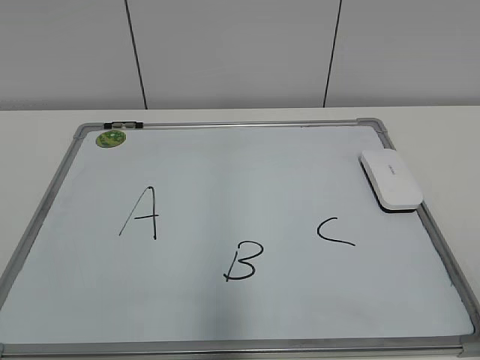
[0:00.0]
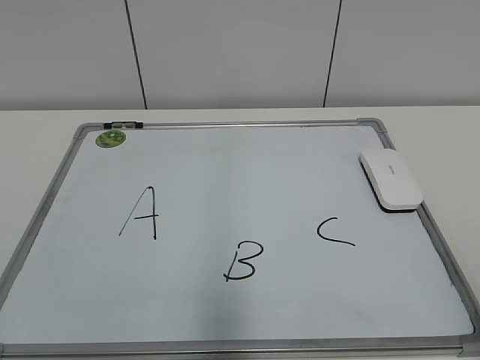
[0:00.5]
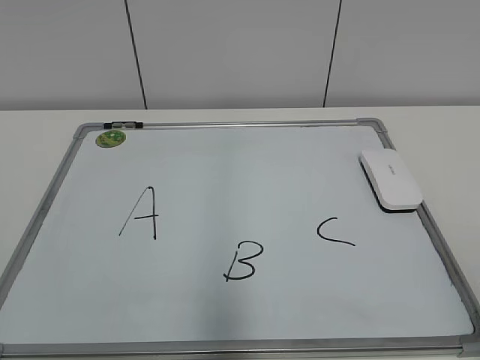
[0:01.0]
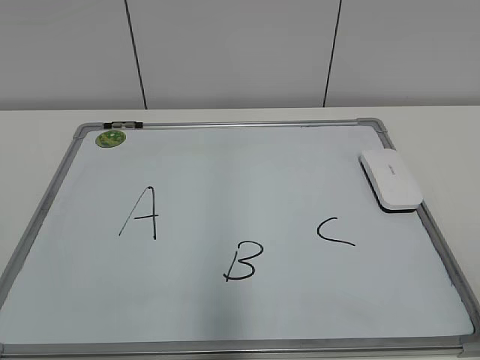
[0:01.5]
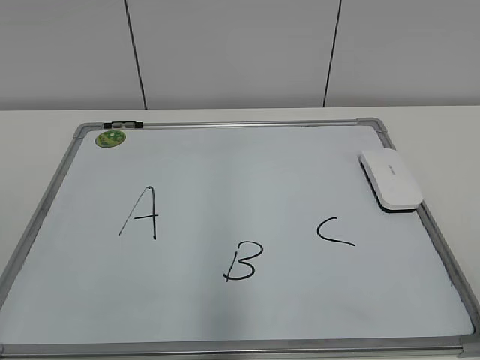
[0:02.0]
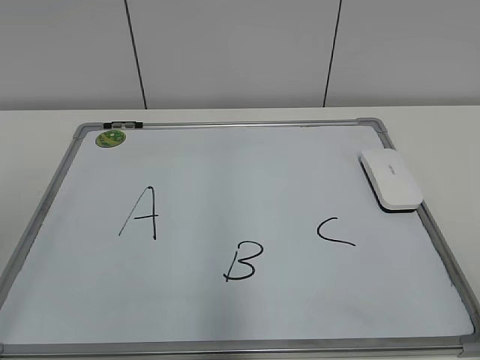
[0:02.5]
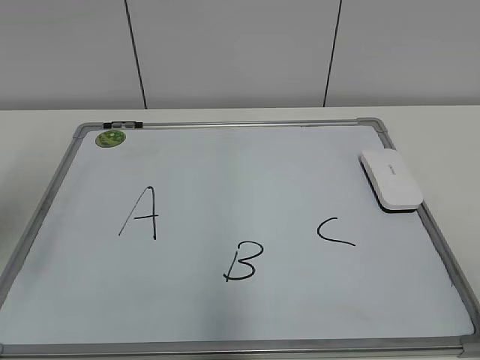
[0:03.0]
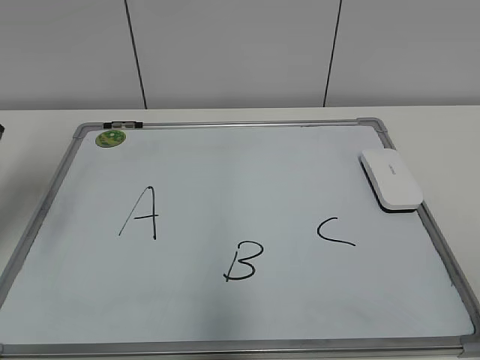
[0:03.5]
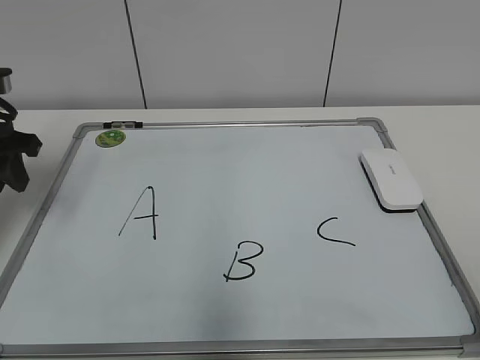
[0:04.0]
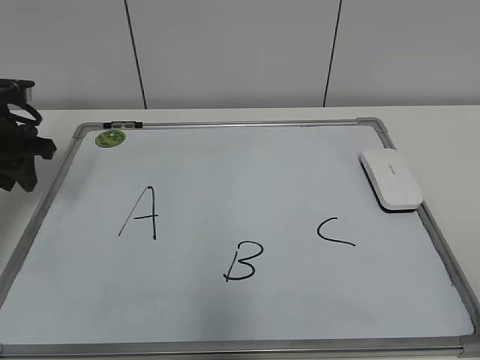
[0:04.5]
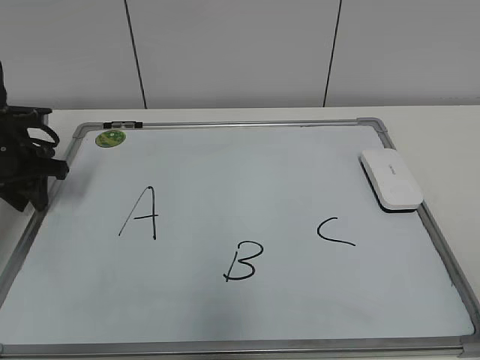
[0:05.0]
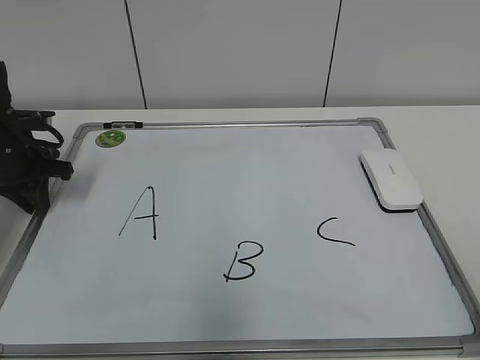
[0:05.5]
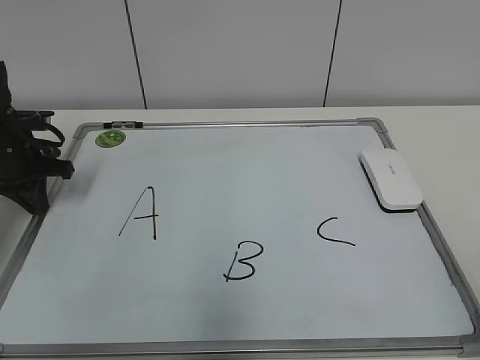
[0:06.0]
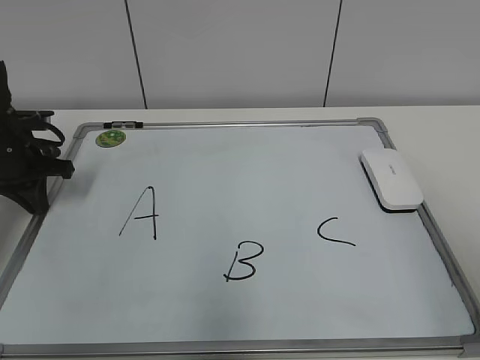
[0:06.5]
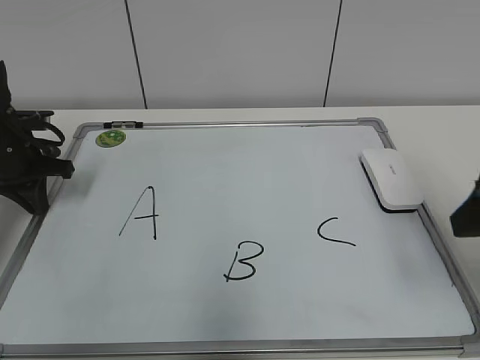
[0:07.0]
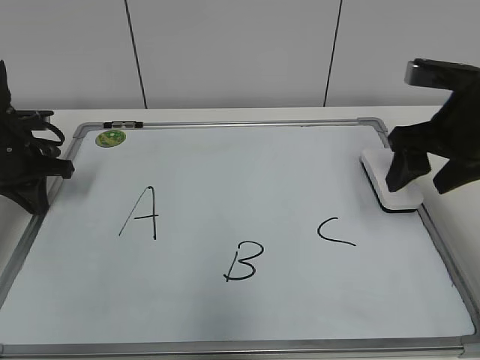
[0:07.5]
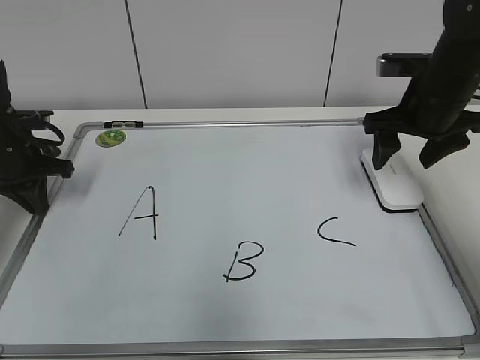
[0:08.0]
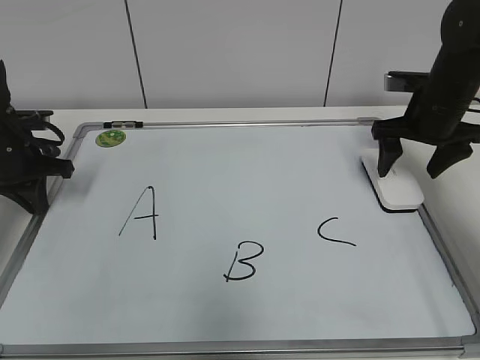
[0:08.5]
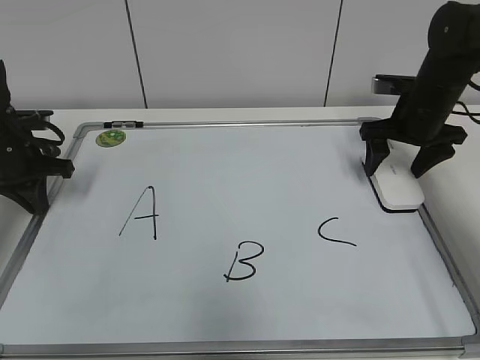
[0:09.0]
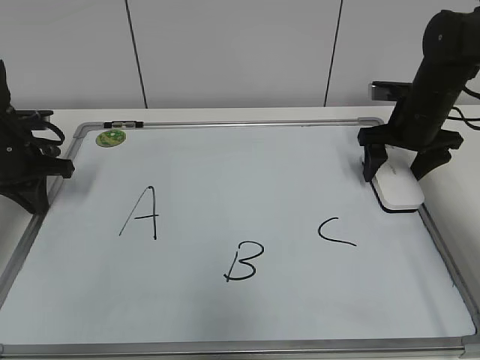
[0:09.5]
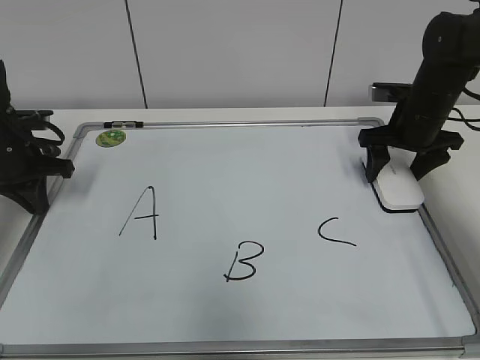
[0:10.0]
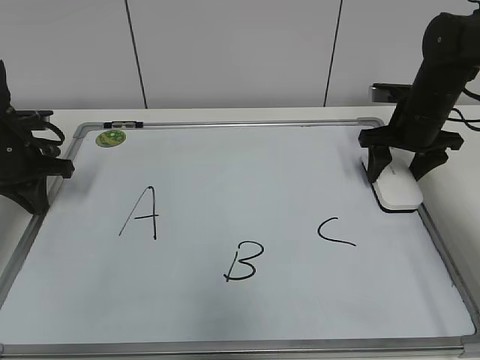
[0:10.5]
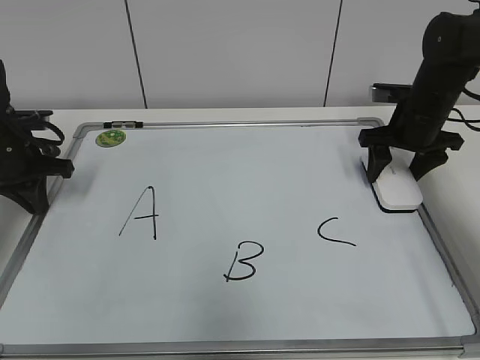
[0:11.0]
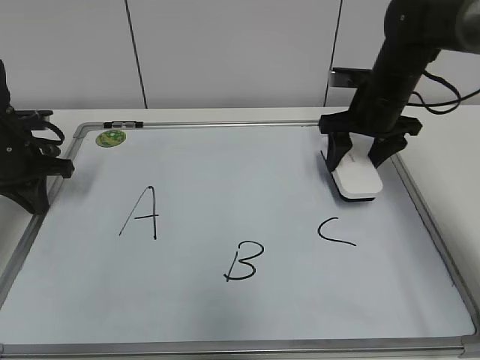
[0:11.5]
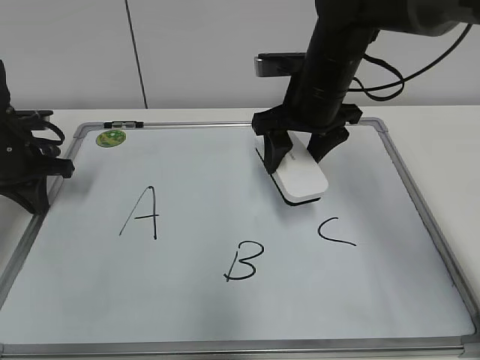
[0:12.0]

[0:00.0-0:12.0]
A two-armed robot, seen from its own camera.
Task of the whole recording: pick up the eraser on the blackboard and erase the letter "B".
Step, 0:00.0 to 0:05.5: Hold the drawing board steady with your left hand.
Step, 0:06.0 to 0:10.5: Grab the eraser with your right hand.
0:02.0 to 0:04.0: The left gripper heads forward, covering some 30 cm.
0:04.0 to 0:06.0: The left gripper is displaced downward and forward by some 10 cm, and closes up.
0:06.0 to 0:08.0: The right gripper goes approximately 40 cm forward.
0:08.0 to 0:10.0: The right gripper moves downward and forward, roughly 10 cm, and opens, then closes once more.
0:10.0 to 0:12.0: The right gripper goes approximately 15 cm to the left and upward, and closes.

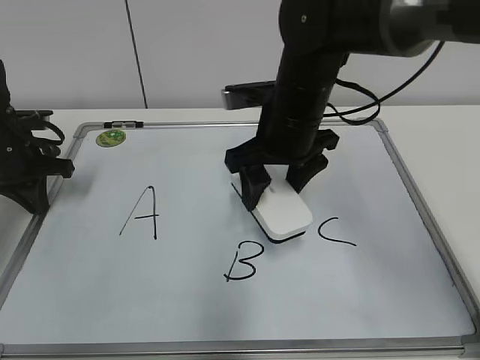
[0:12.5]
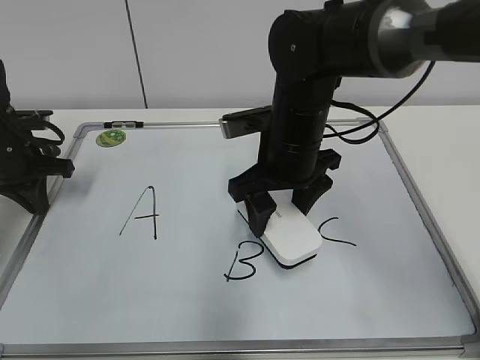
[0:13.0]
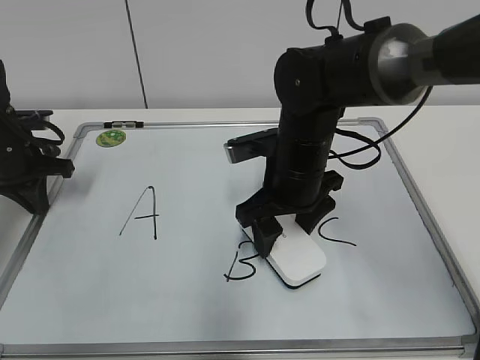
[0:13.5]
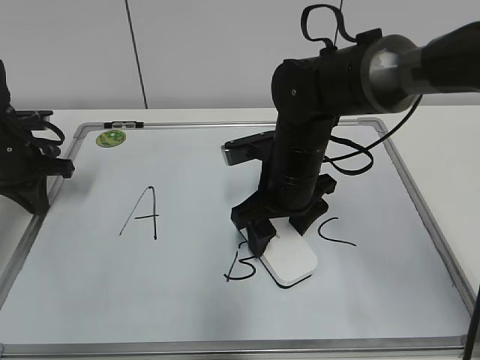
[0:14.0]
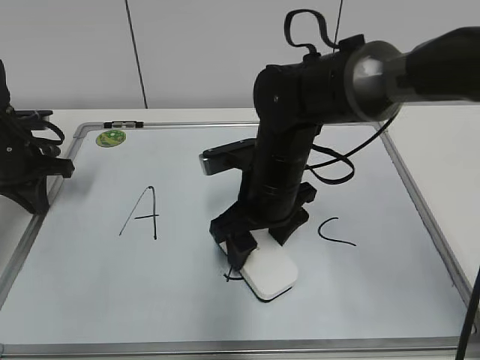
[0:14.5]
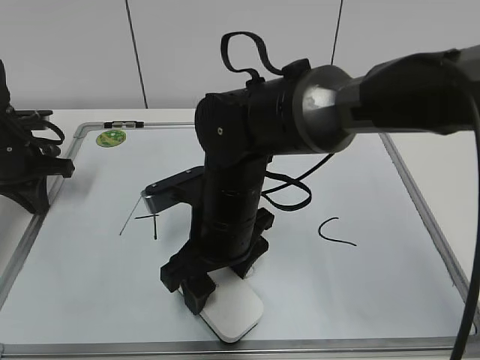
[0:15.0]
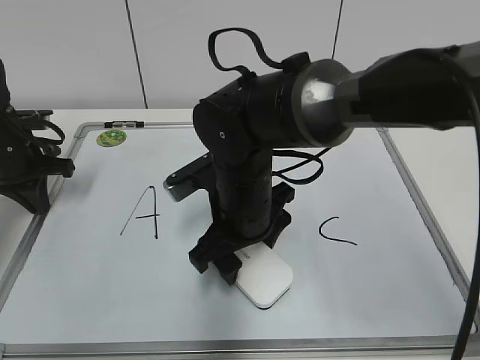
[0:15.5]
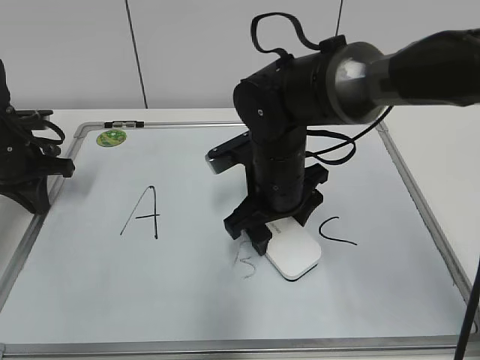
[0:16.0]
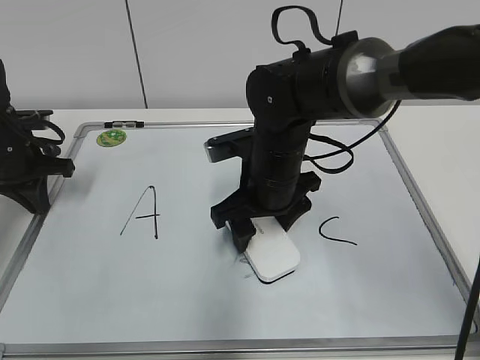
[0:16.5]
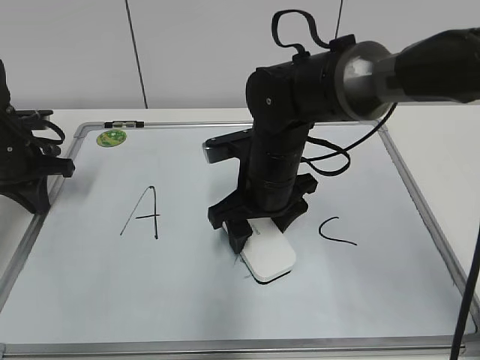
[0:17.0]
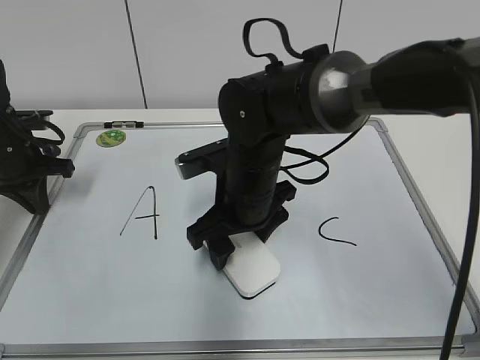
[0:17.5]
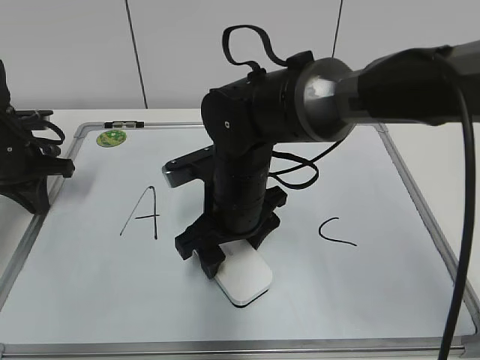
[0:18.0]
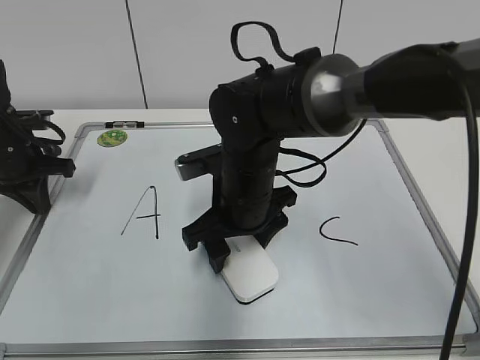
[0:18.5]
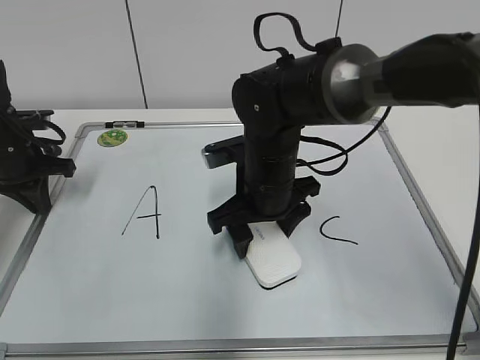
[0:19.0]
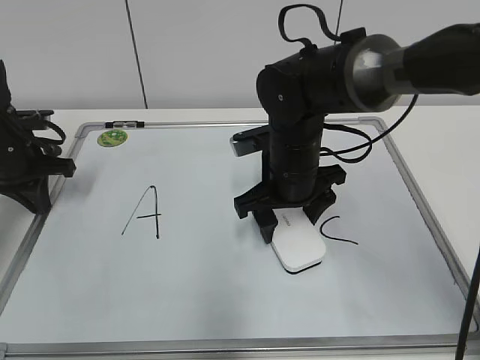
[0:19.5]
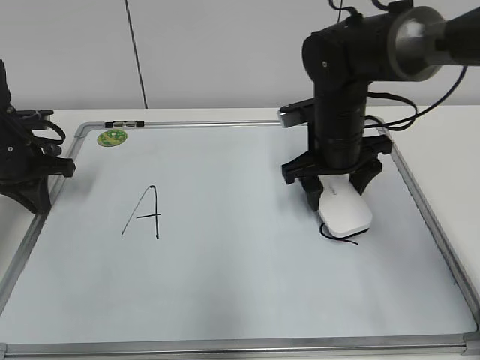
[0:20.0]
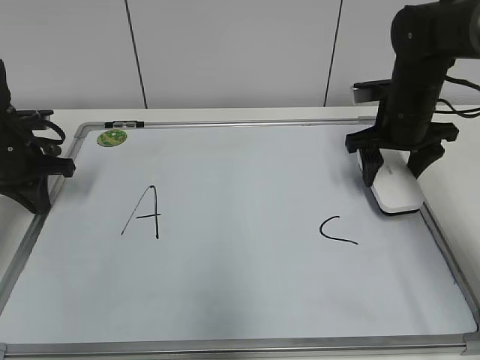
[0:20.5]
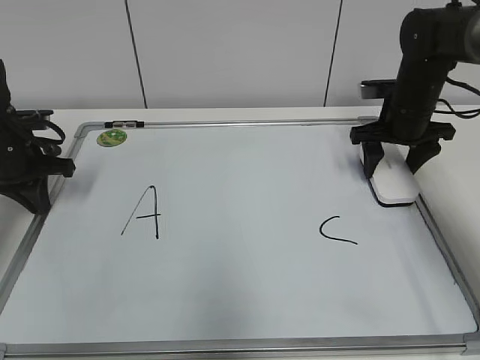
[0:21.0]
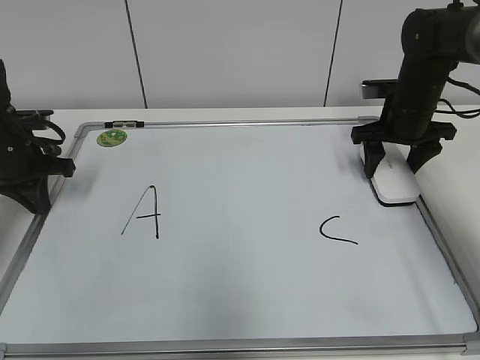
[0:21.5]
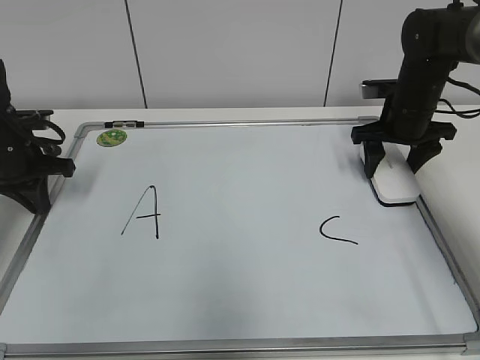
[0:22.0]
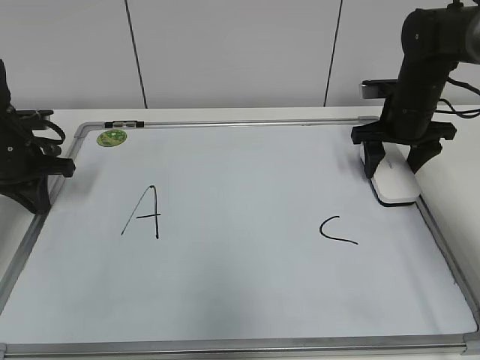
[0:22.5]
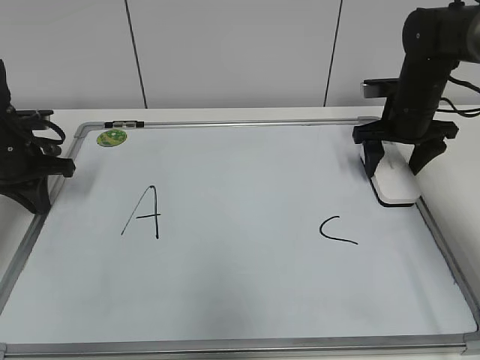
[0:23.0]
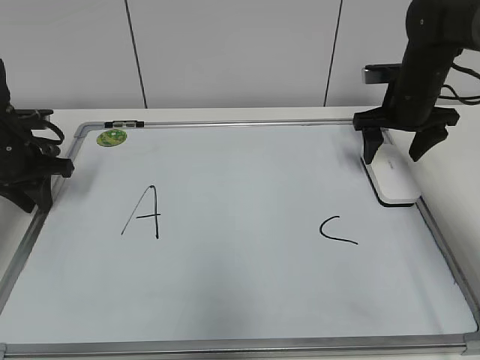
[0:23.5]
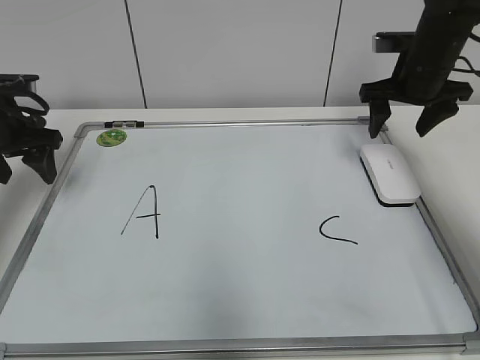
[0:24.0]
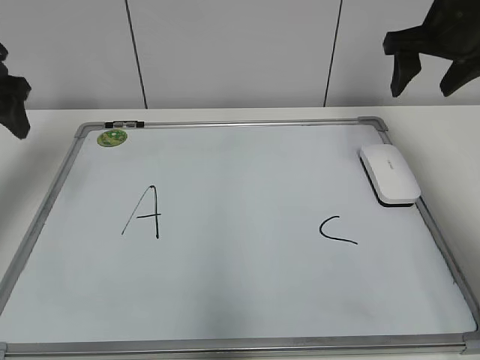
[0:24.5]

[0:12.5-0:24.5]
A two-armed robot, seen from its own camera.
Task of the whole recording: pick up the eraser on the blackboard and erase the letter "B".
Step, 0:12.5 to 0:19.0: Erase the letter B with your right hand.
0:12.5 to 0:14.5: The right gripper travels downward by some 5 cm.
0:16.5 to 0:18.5: There are only small adjustments of the grippers.
0:18.5 to 0:20.5: The right gripper travels to the right and forward by about 25 cm.
0:20.5 to 0:22.5: The grippers make only small movements.
0:22.5 to 0:24.5: Both grippers travel together upward, approximately 15 cm. The right gripper opens and closes again. Meanwhile the left gripper opens up.

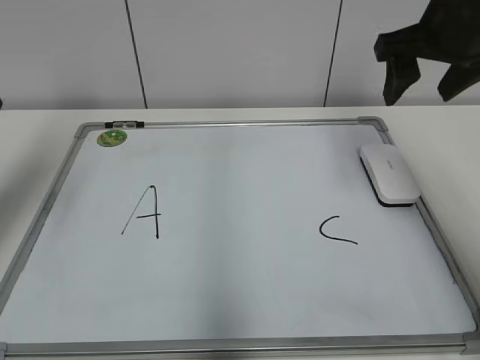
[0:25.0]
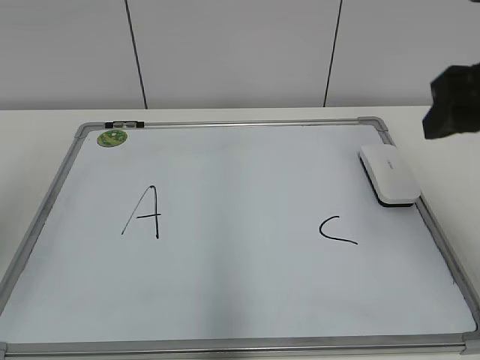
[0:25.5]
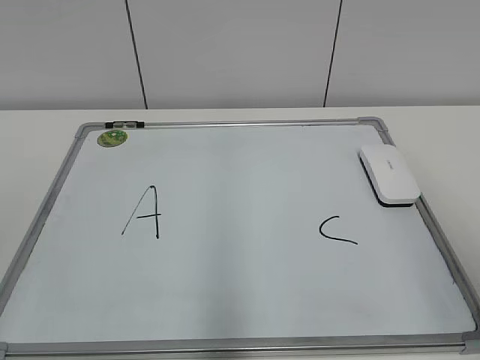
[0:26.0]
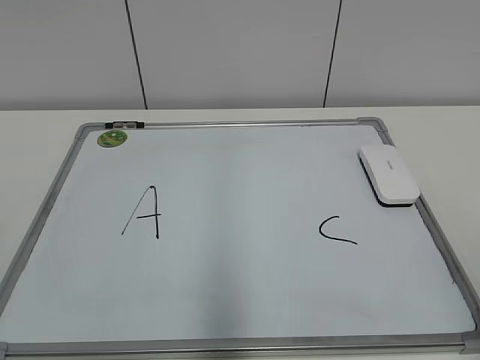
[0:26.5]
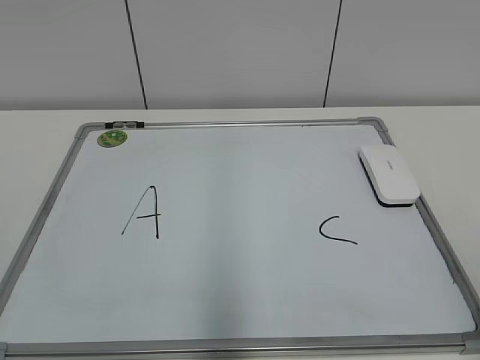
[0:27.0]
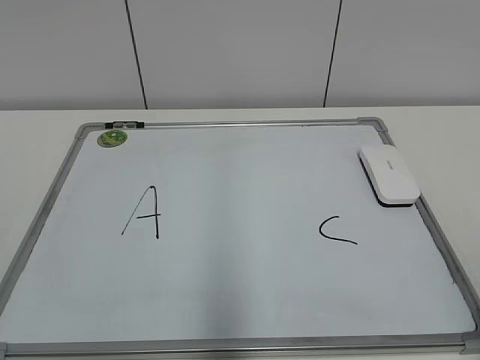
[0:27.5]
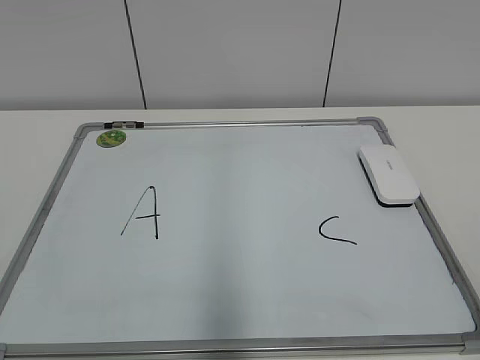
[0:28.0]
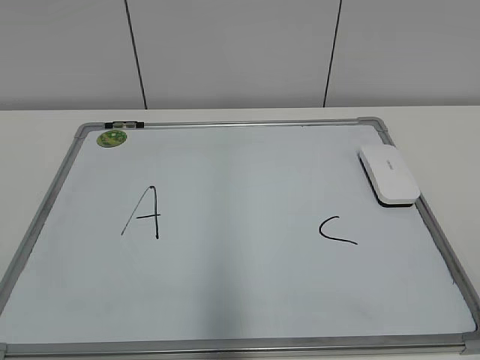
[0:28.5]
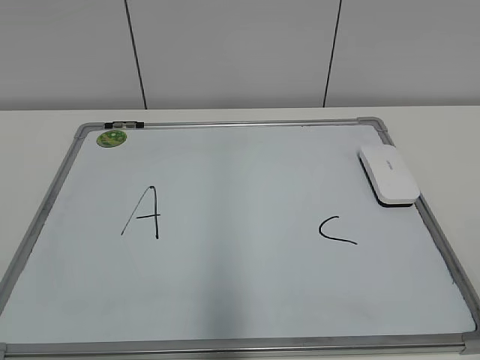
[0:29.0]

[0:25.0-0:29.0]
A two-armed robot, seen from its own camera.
Task of the whole recording: pick up the eraser on the blackboard and erase the letter "B".
0:25.0 to 0:27.0: Both grippers move backward, some 35 cm.
